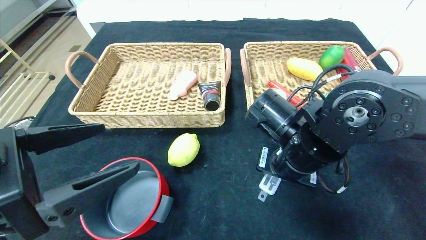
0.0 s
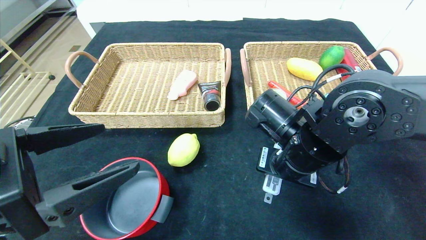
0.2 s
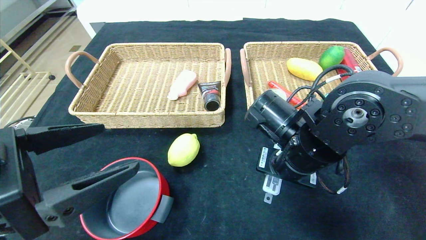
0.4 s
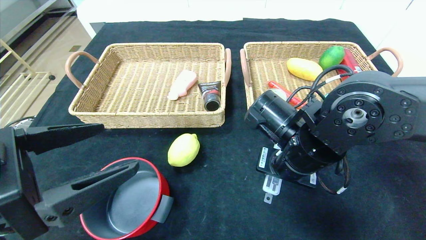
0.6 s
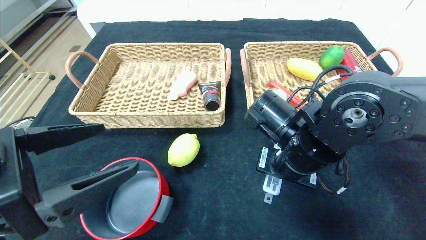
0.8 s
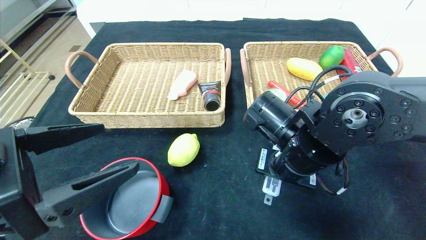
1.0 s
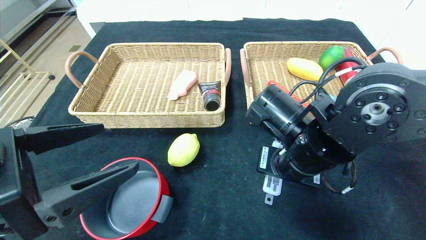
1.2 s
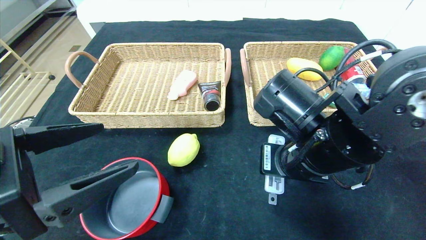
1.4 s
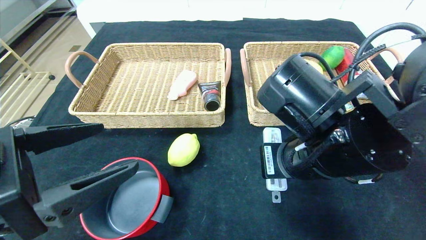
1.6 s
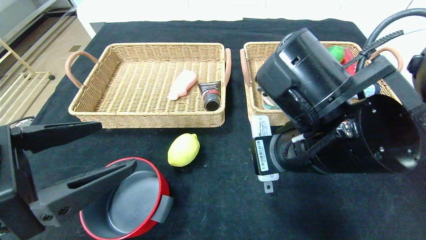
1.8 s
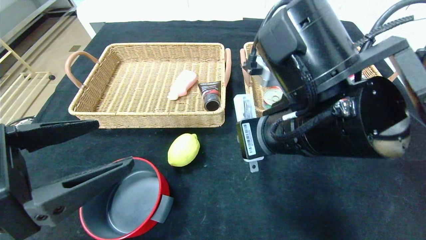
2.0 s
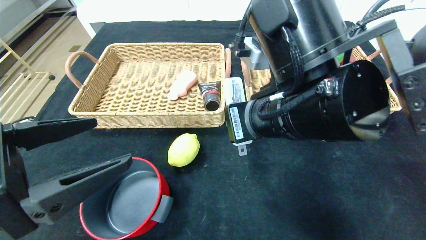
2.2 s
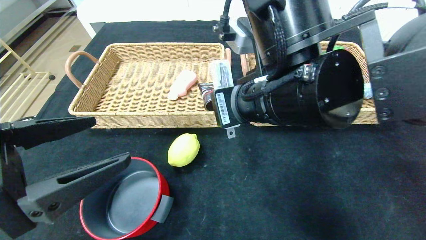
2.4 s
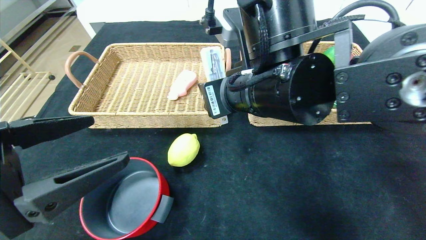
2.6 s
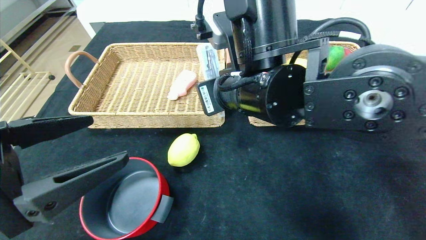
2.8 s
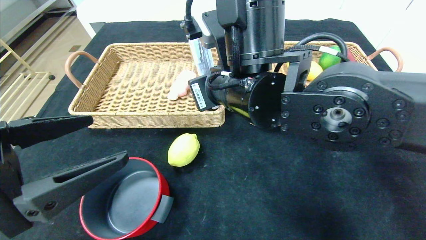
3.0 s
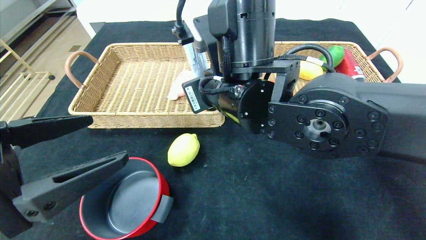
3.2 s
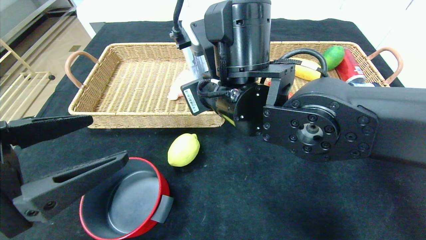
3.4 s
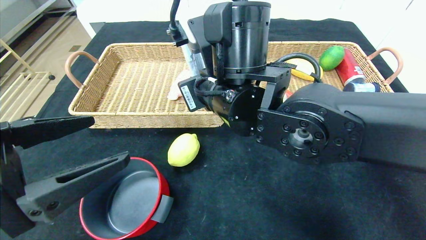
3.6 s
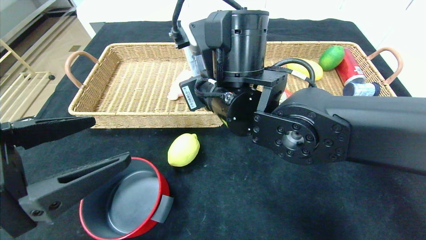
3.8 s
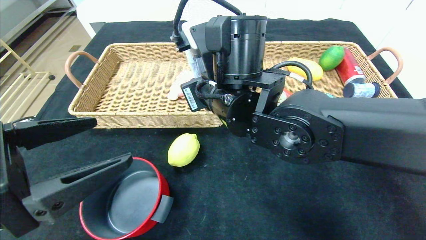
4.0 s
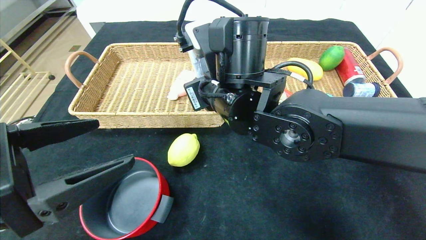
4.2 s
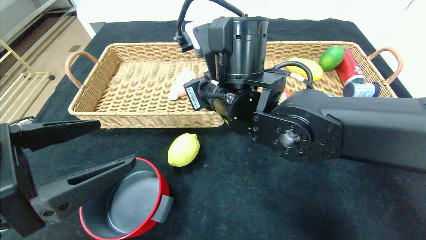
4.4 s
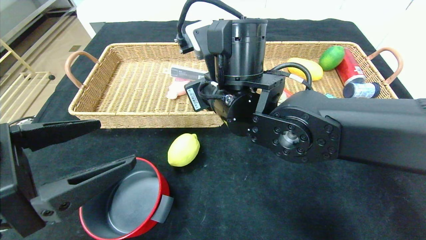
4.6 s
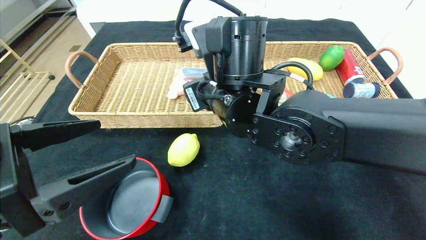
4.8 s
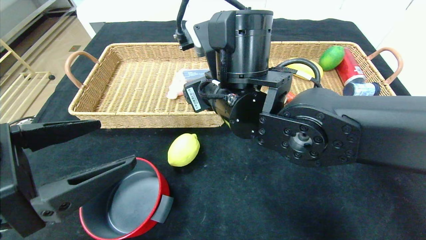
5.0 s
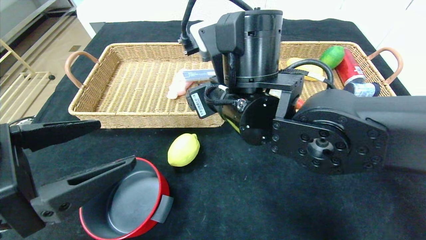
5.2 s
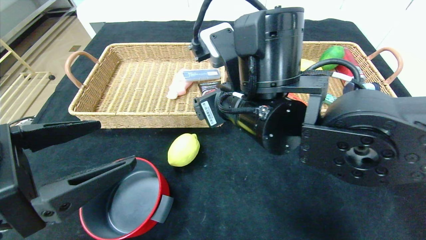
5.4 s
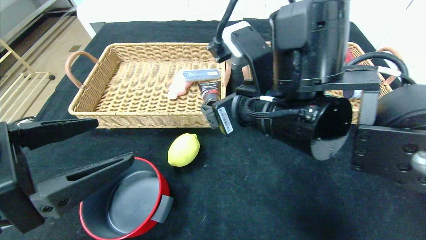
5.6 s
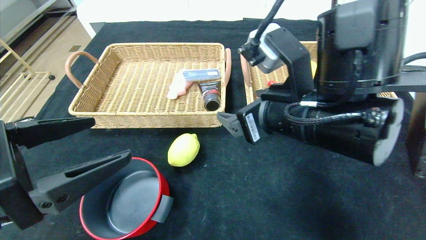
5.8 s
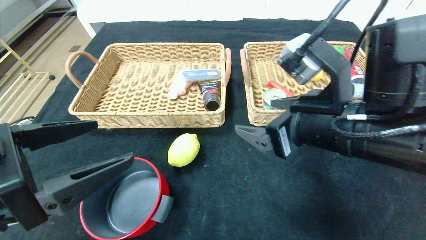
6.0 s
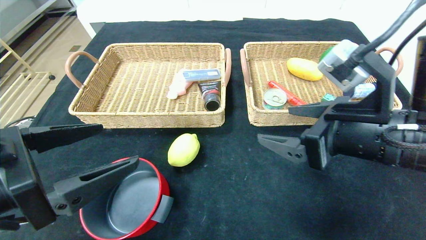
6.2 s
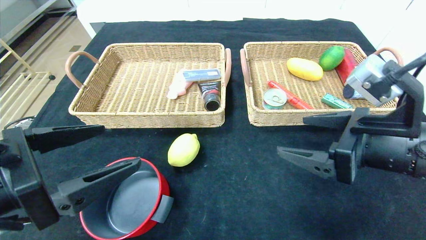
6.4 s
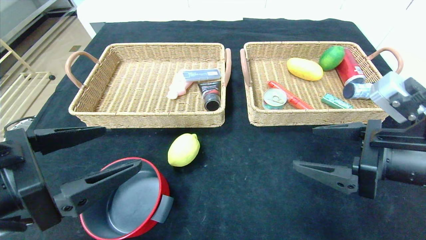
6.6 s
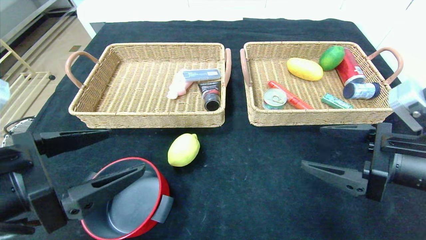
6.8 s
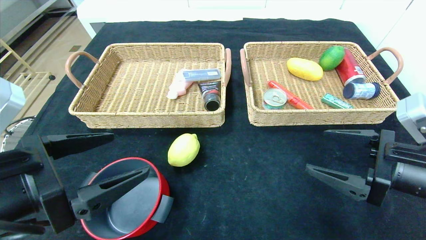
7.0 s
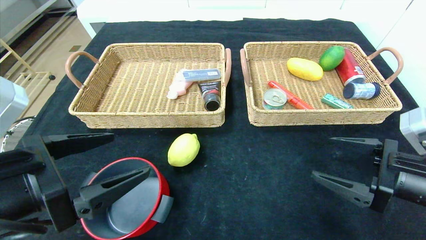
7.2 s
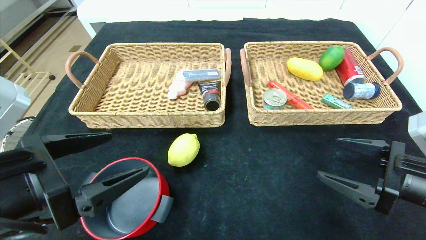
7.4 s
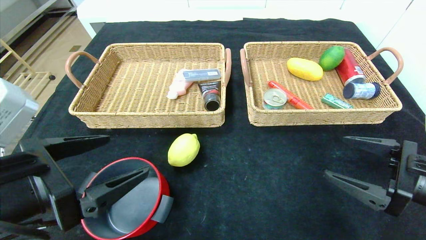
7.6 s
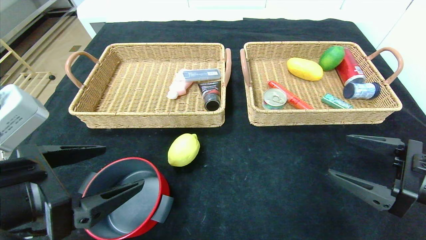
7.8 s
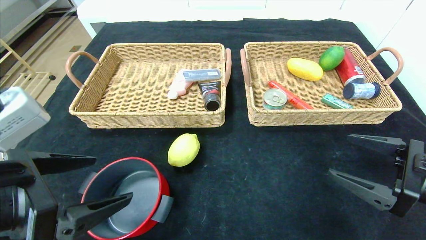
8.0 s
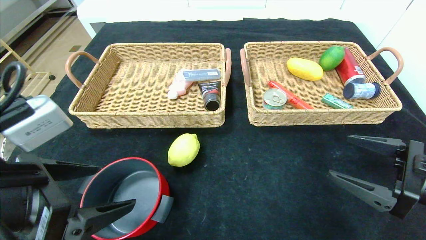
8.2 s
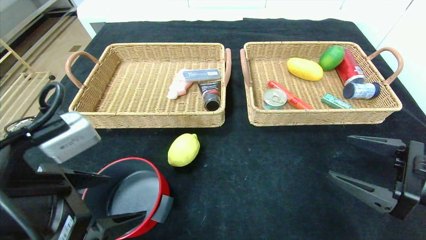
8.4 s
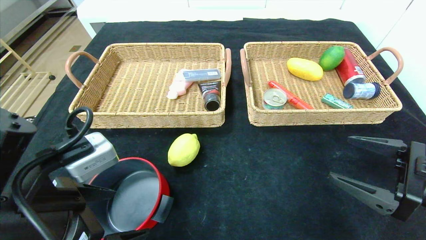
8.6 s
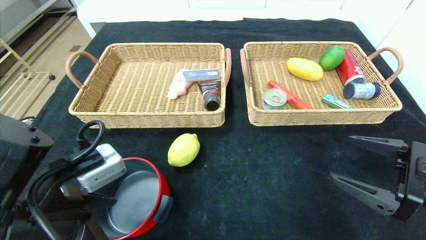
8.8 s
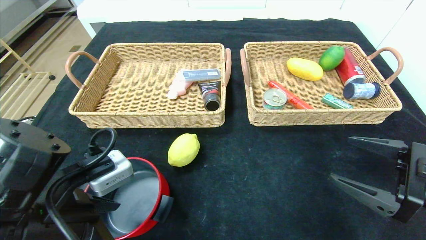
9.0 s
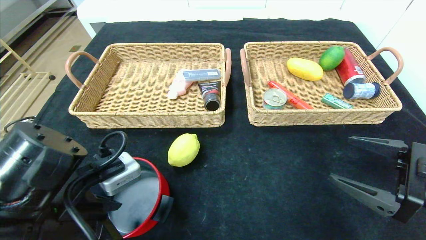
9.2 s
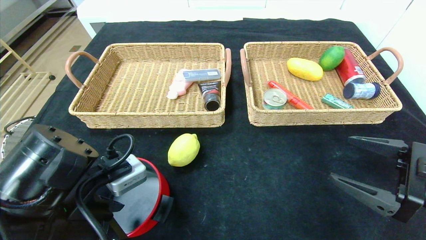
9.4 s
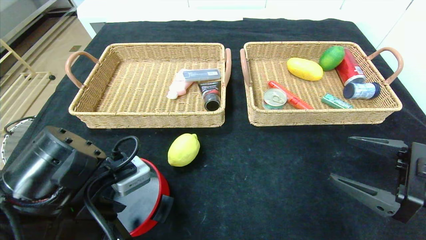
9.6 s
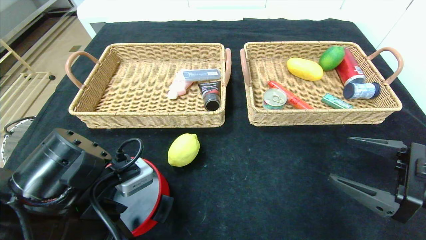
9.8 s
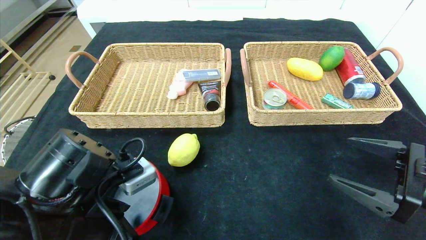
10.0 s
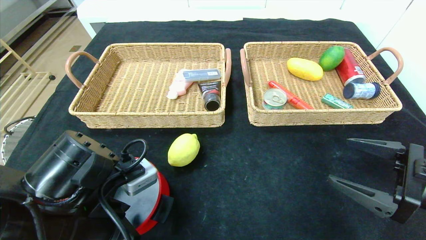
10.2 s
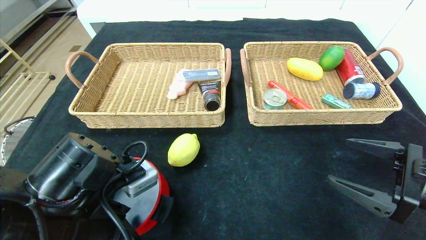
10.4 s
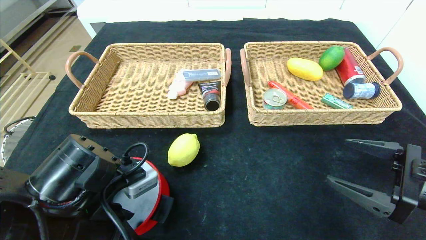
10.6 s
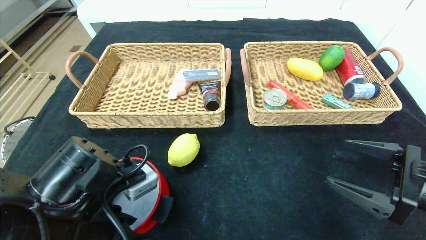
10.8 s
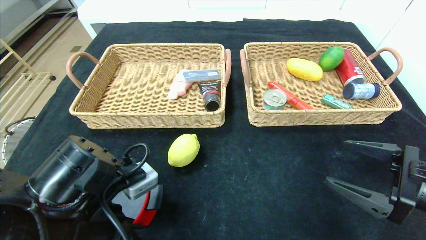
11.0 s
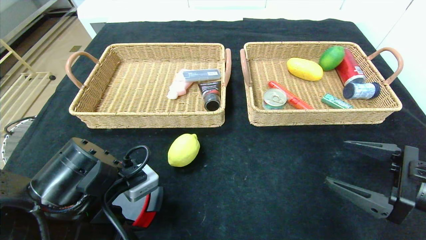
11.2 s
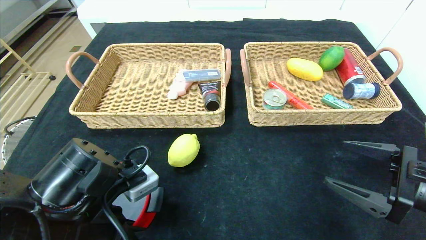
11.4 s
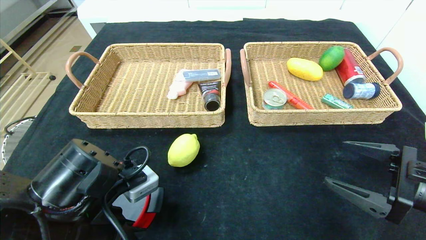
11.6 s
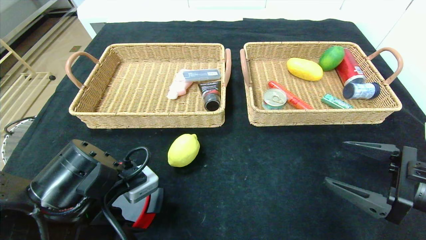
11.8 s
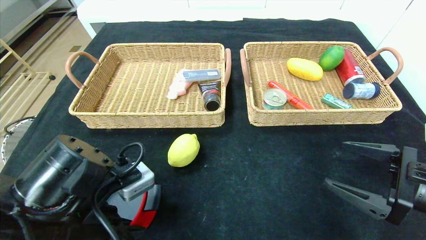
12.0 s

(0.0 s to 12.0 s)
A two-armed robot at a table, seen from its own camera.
0.0 s - 1.6 s: The right gripper heads backward, covering roughly 5 cm.
1.6 s - 3.0 s: The right gripper is displaced to the left and forward by some 10 cm.
4.4 s - 6.0 s: The right gripper travels to the right and backward by approximately 15 cm, and opens.
6.0 s - 7.6 s: The right gripper goes approximately 15 cm to the right and downward.
9.0 s - 10.4 s: There are only small adjustments of the grippers.
10.4 s - 12.0 s: The left gripper closes its fingers.

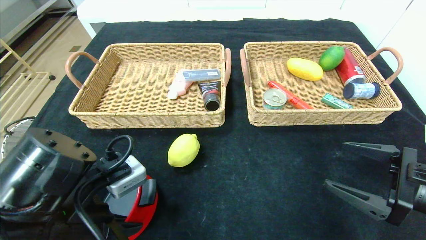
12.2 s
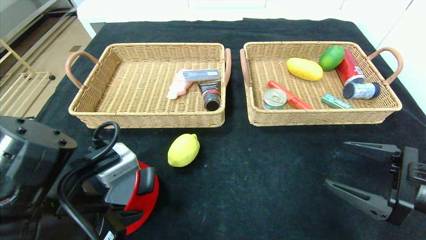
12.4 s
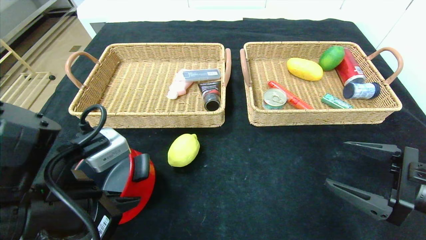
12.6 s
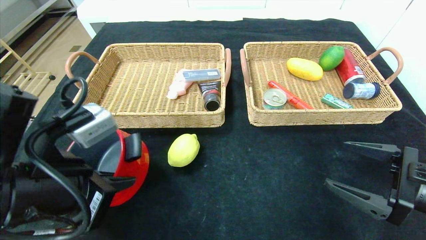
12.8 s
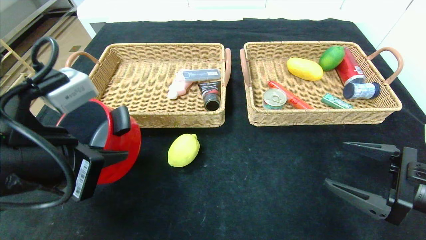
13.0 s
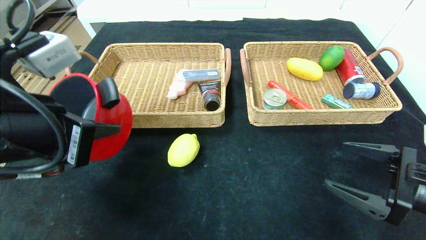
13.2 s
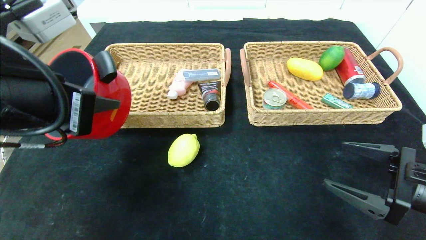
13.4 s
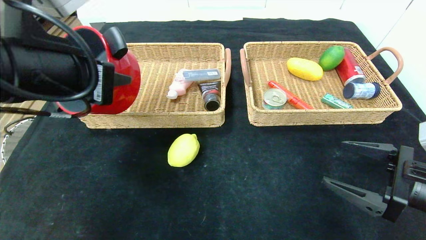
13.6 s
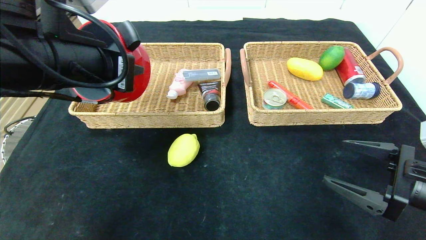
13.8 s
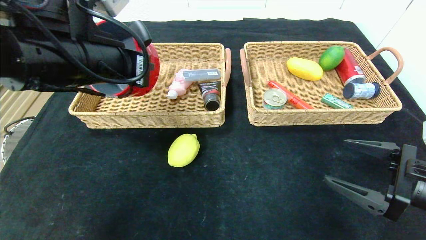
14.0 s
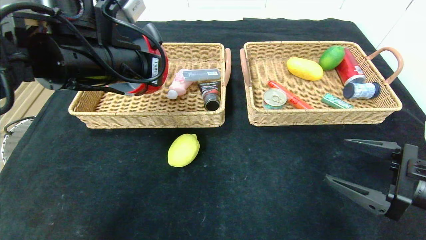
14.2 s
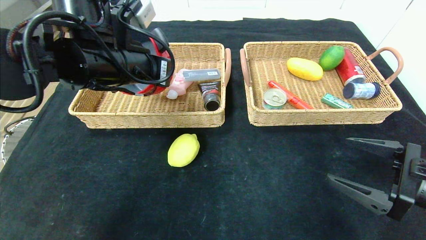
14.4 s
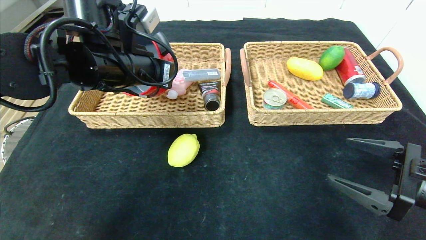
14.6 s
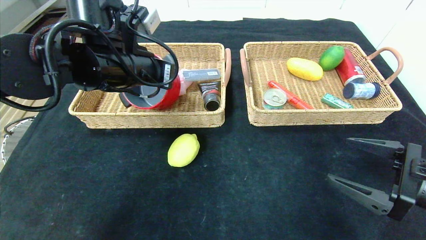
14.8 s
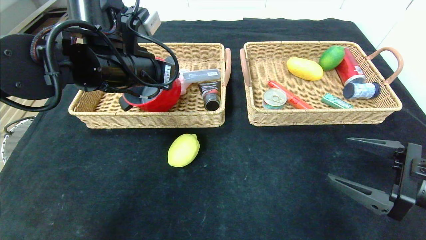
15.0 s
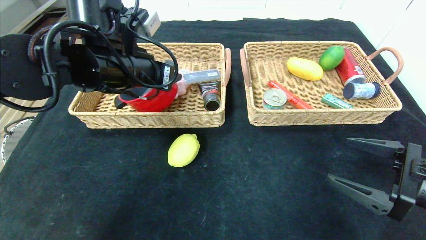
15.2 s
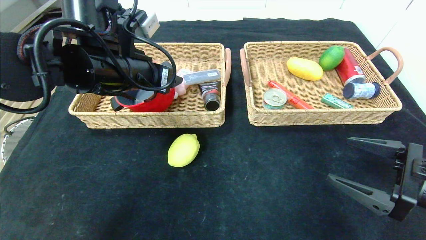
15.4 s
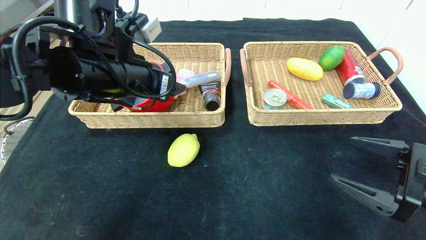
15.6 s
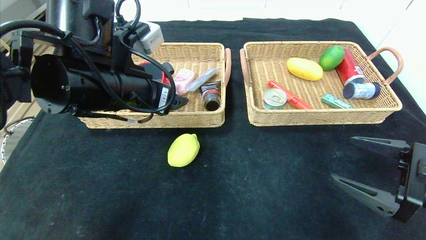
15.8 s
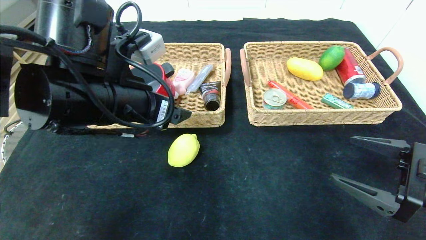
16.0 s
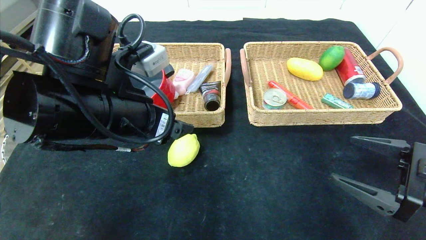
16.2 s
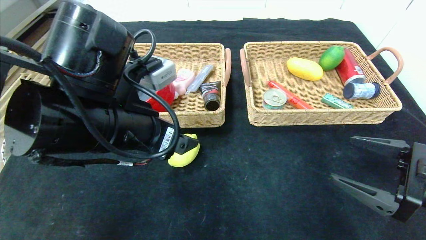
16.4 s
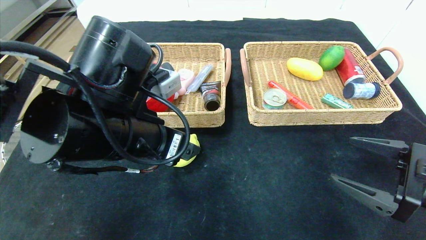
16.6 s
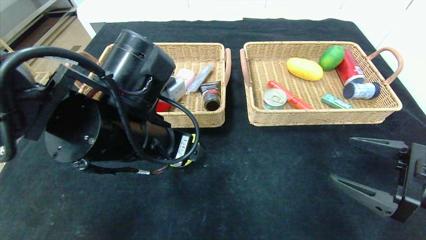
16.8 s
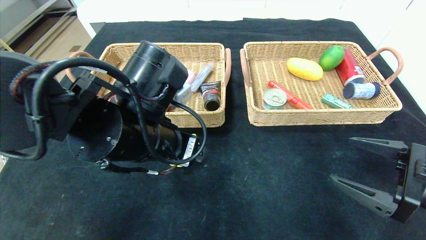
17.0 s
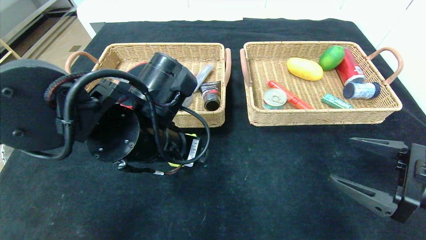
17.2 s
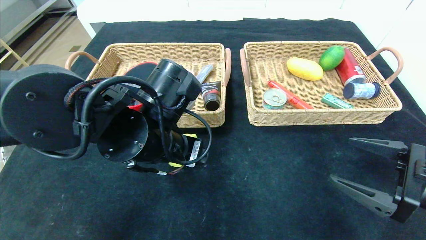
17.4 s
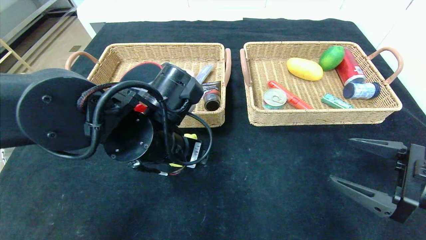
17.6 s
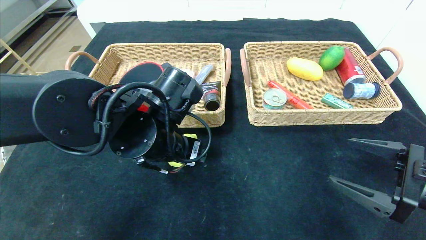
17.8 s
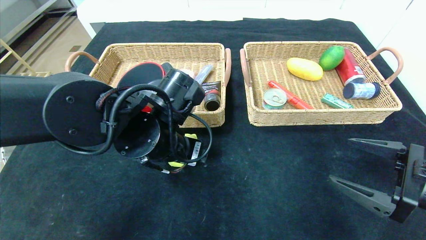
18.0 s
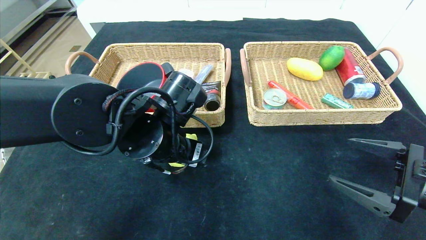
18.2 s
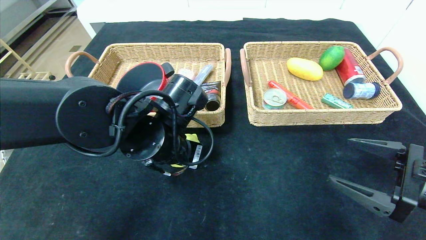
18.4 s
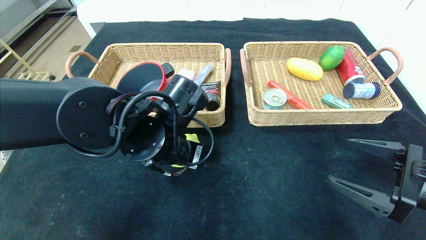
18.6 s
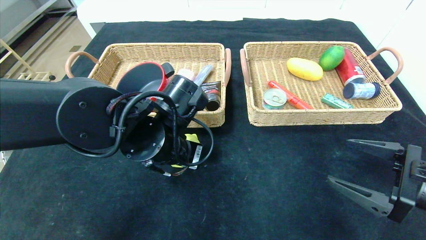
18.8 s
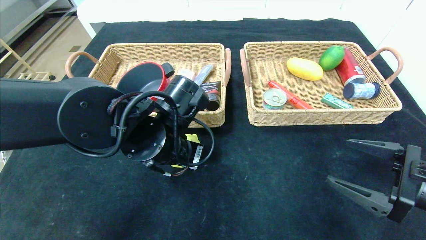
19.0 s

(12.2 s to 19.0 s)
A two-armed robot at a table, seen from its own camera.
Step, 12.2 s - 16.8 s: Pick up the red pot and put it in the left basket.
12.2 s - 13.6 s: The left gripper travels upward and forward by approximately 15 cm.
13.6 s - 15.0 s: The left gripper travels forward by approximately 10 cm, and opens.
15.0 s - 16.2 s: The left gripper heads backward, covering roughly 10 cm, and opens.
16.2 s - 17.6 s: The left gripper goes approximately 5 cm downward.
17.6 s - 19.0 s: The left gripper closes.
